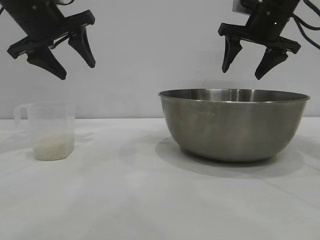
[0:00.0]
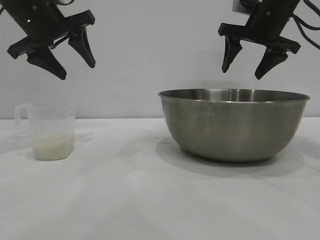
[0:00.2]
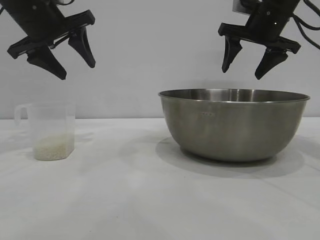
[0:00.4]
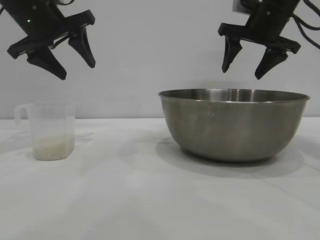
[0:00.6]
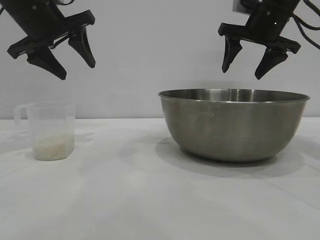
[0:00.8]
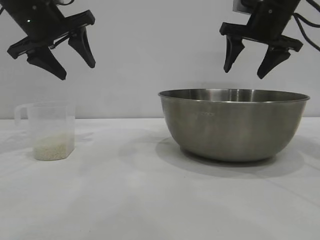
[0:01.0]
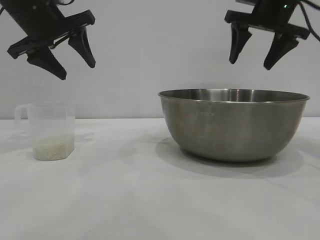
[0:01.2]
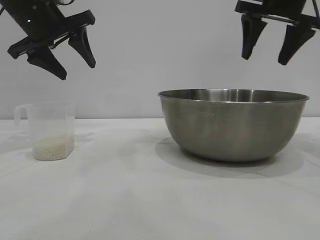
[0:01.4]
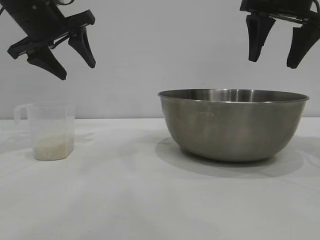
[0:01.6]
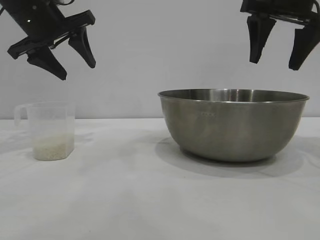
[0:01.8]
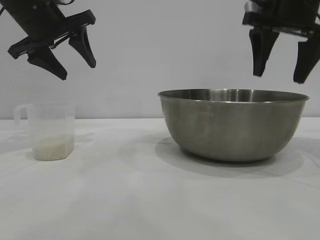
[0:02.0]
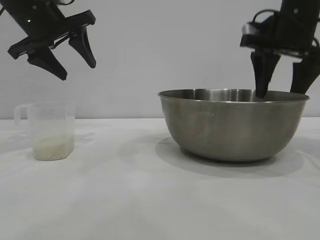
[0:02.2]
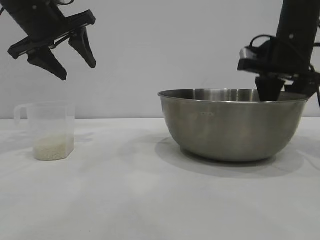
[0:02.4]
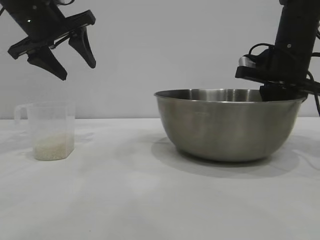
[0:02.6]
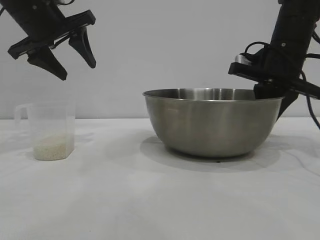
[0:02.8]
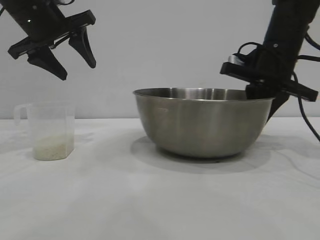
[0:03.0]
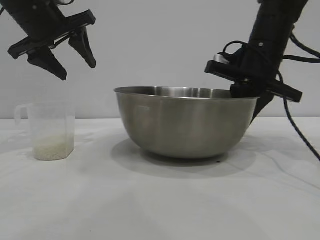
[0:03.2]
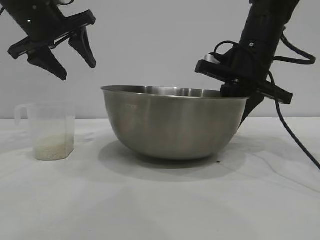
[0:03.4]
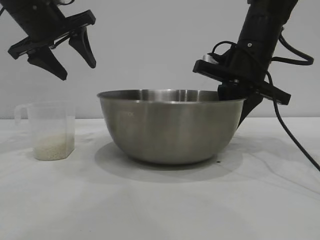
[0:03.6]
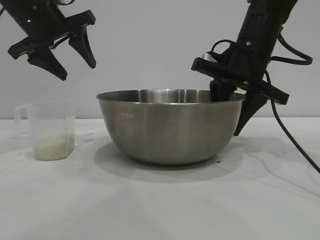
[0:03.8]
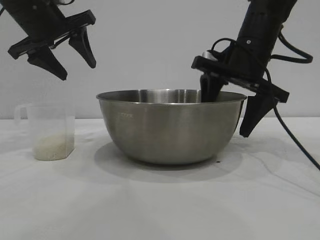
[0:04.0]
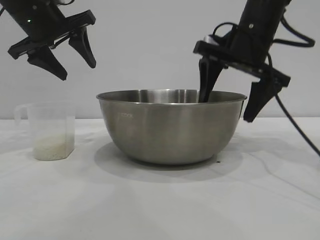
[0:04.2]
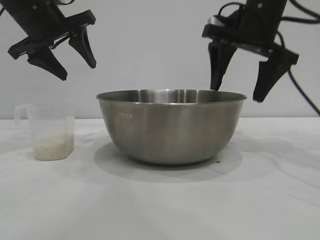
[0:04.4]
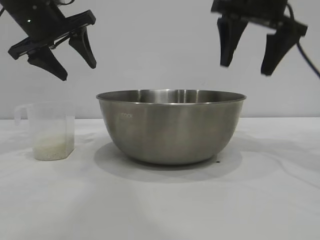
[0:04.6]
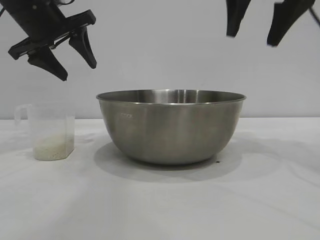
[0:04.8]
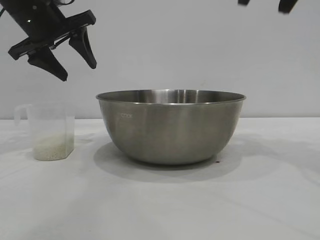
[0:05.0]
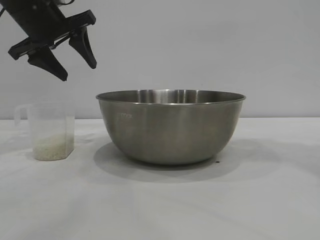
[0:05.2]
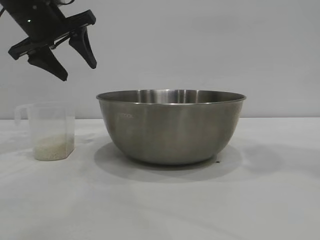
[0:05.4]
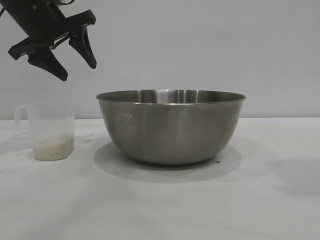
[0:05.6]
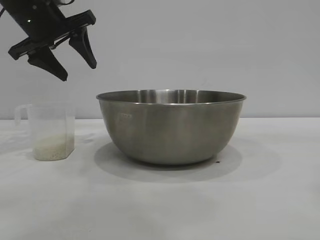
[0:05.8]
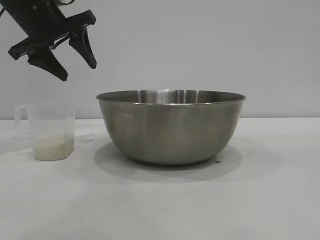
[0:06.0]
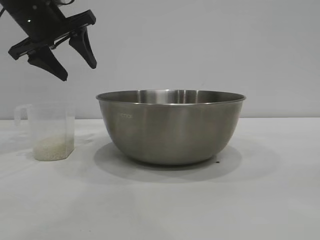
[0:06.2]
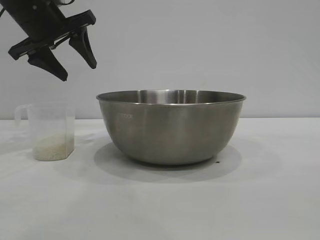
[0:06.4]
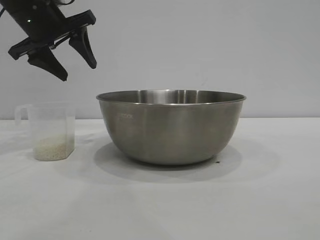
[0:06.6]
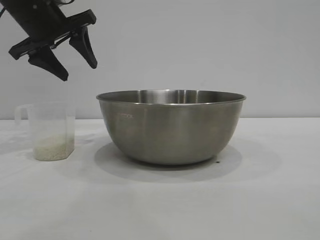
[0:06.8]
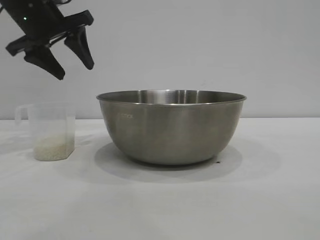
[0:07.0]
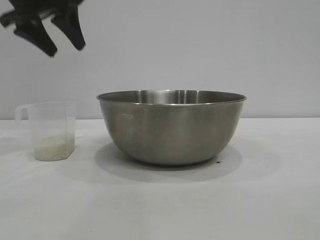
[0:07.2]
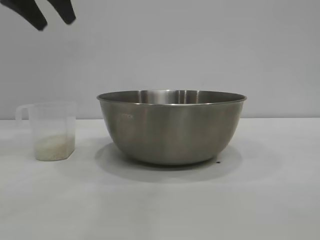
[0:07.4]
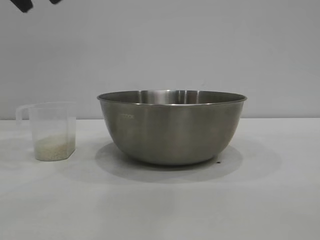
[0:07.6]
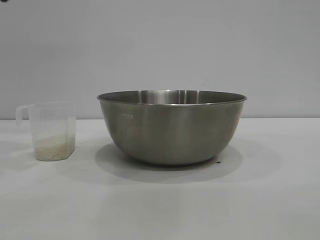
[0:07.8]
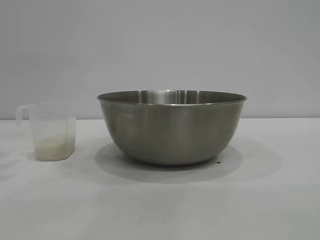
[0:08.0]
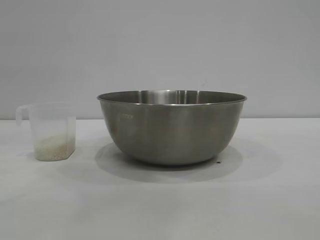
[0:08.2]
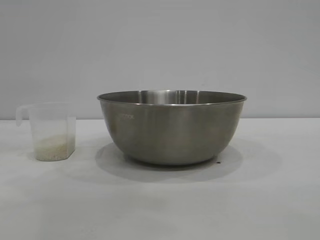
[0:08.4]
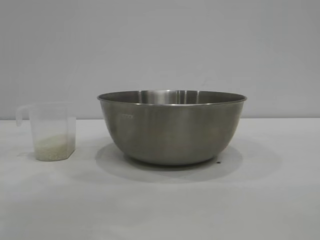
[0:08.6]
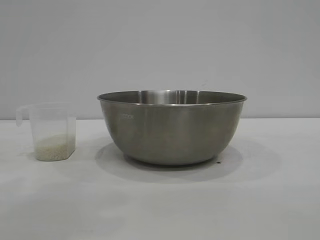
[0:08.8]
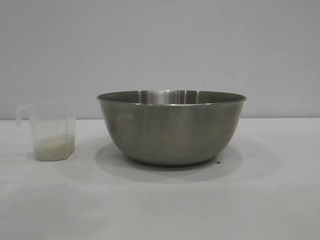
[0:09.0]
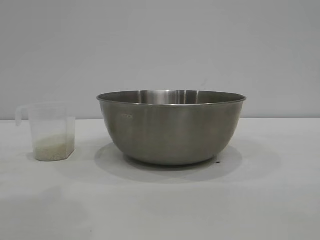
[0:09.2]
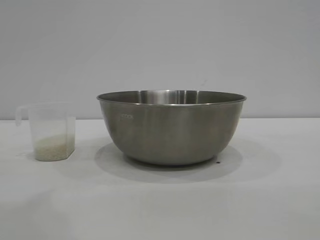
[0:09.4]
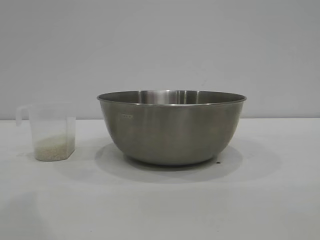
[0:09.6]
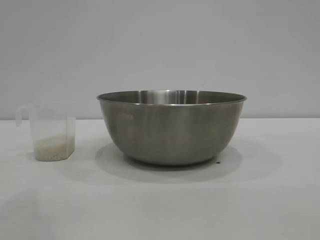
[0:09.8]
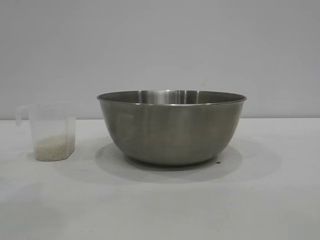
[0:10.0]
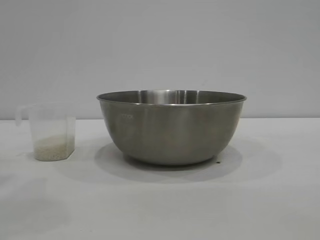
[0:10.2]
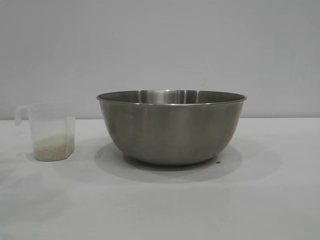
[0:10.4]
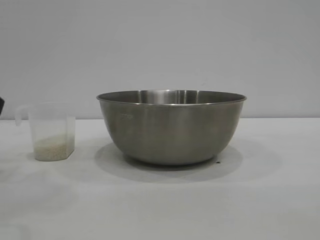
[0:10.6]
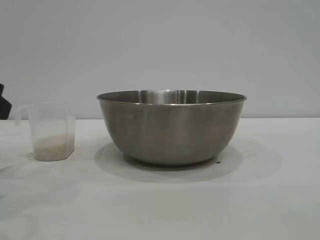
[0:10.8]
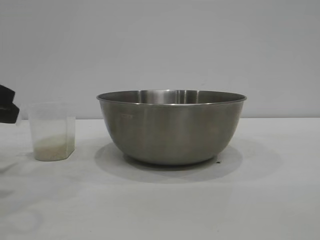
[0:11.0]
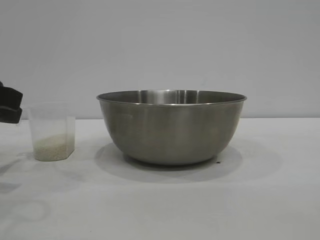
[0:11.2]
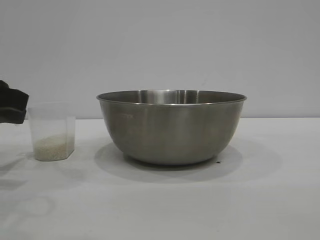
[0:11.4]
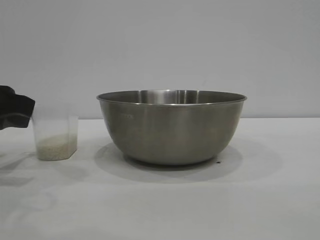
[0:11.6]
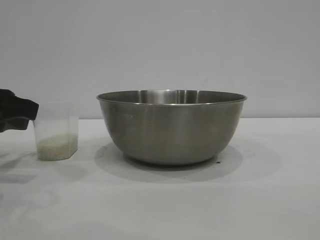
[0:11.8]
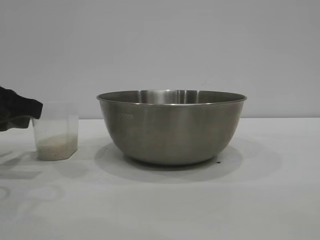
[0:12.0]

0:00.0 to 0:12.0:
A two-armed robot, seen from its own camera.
Task of the whole recording: the right gripper grasp the rice container and place it in the center of the table, the left gripper grasp the rice scoop and pour the rice into the rice container.
Step, 0:00.0 to 0:04.4: Move the bowl to the center of view with the right gripper.

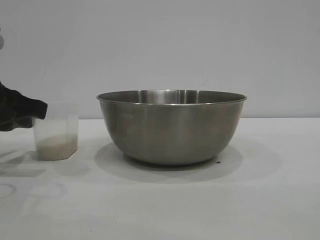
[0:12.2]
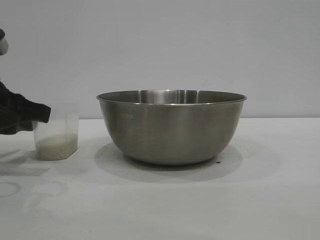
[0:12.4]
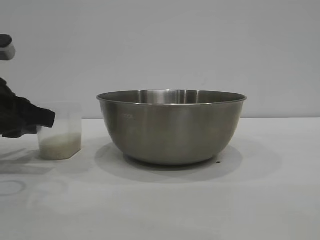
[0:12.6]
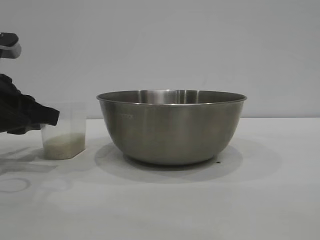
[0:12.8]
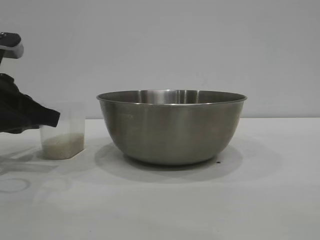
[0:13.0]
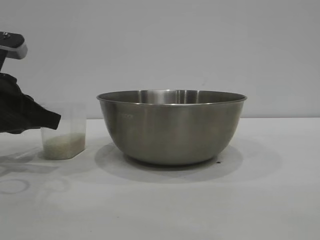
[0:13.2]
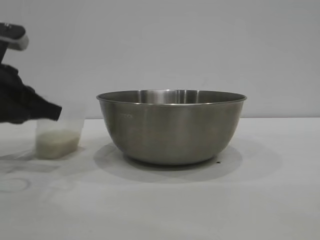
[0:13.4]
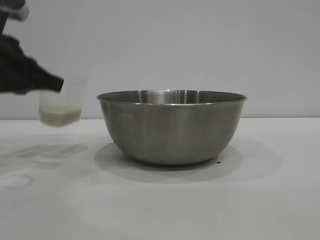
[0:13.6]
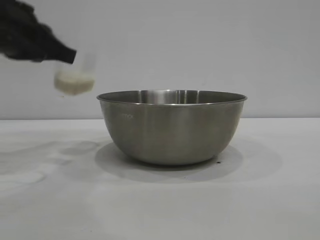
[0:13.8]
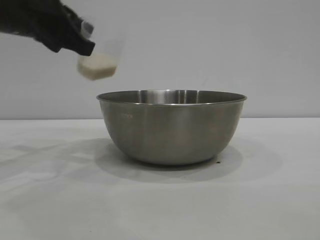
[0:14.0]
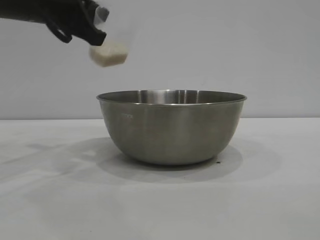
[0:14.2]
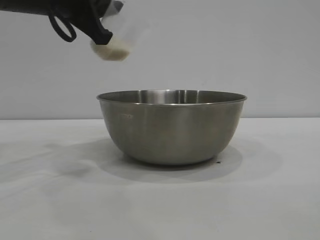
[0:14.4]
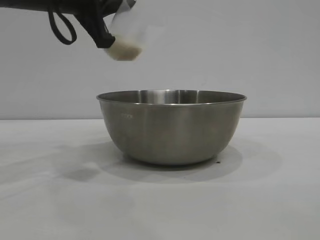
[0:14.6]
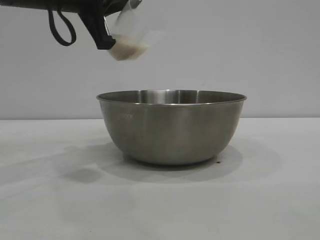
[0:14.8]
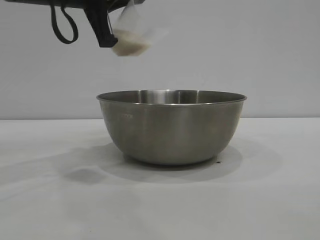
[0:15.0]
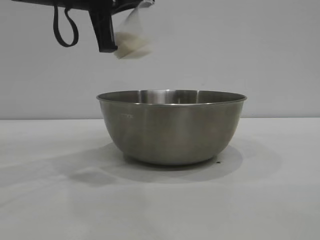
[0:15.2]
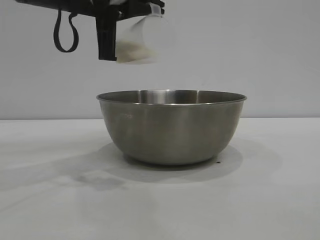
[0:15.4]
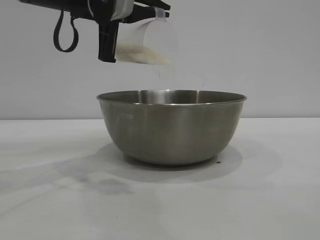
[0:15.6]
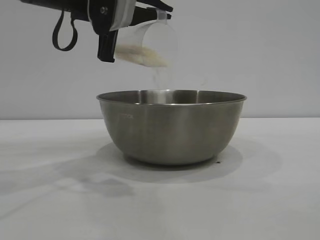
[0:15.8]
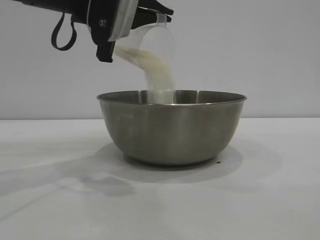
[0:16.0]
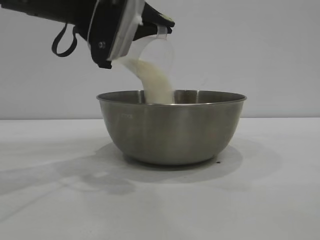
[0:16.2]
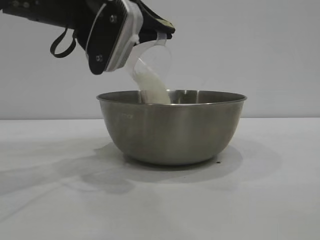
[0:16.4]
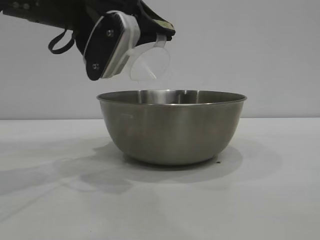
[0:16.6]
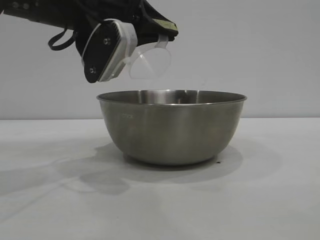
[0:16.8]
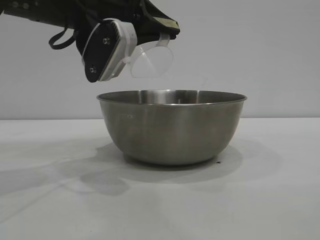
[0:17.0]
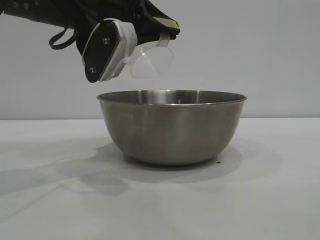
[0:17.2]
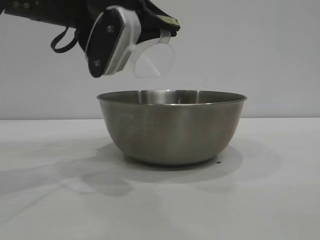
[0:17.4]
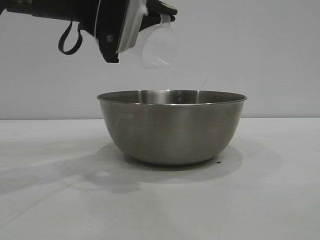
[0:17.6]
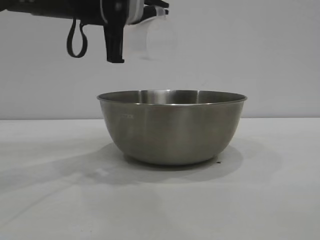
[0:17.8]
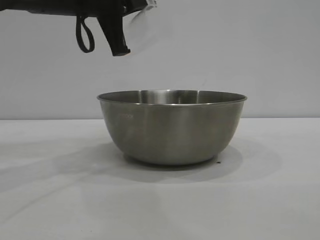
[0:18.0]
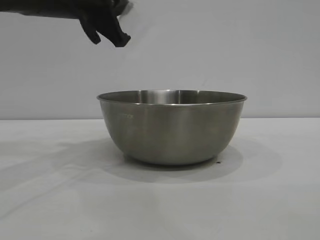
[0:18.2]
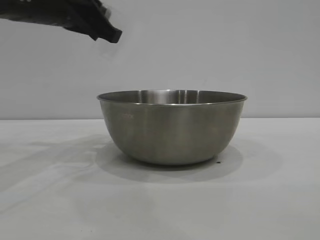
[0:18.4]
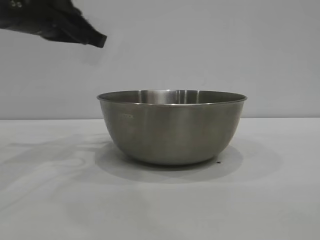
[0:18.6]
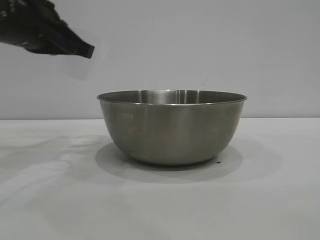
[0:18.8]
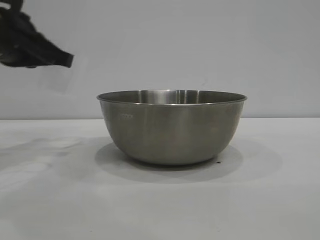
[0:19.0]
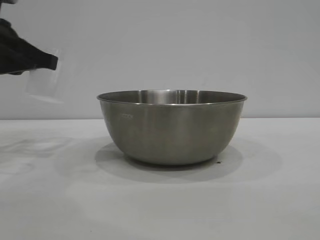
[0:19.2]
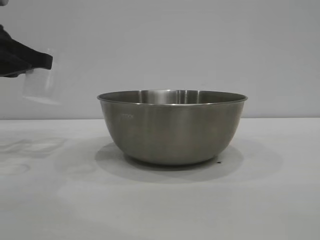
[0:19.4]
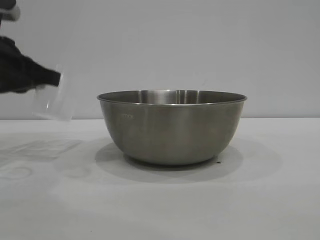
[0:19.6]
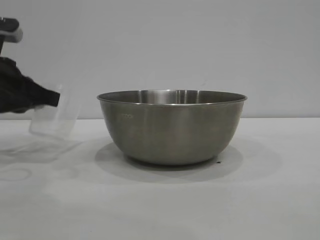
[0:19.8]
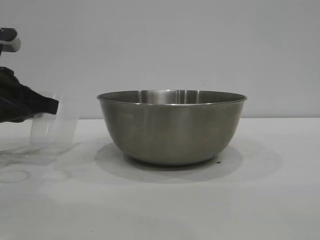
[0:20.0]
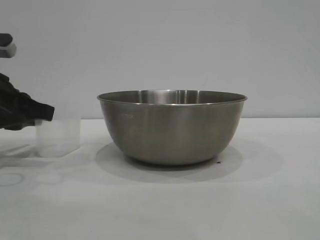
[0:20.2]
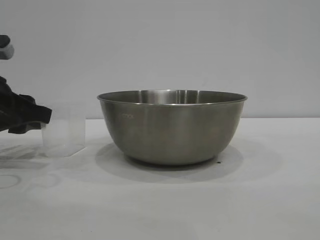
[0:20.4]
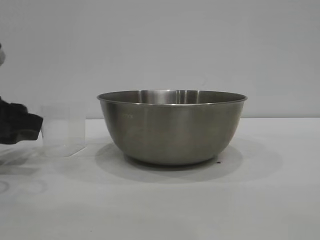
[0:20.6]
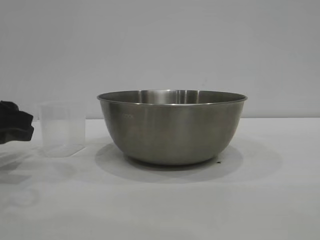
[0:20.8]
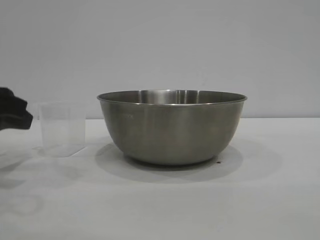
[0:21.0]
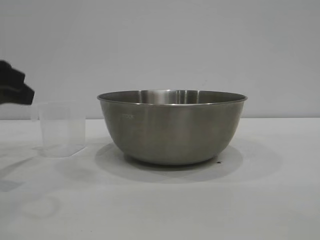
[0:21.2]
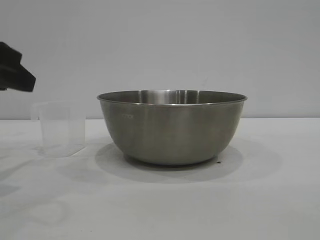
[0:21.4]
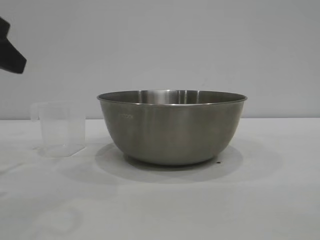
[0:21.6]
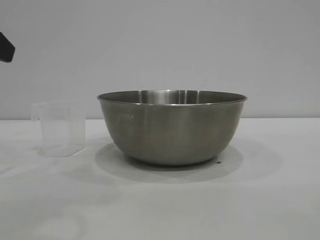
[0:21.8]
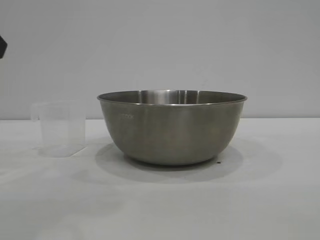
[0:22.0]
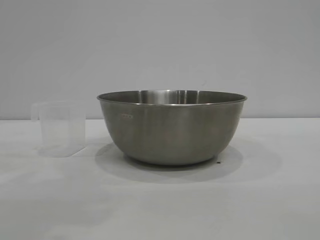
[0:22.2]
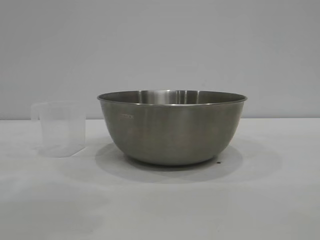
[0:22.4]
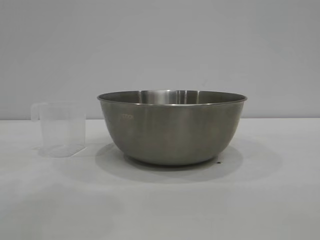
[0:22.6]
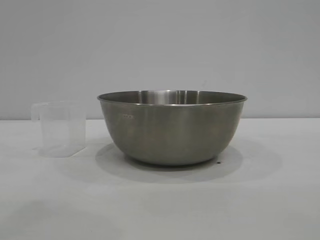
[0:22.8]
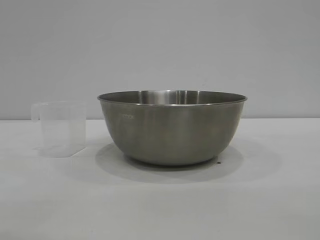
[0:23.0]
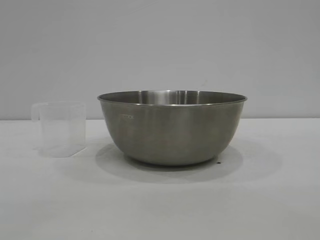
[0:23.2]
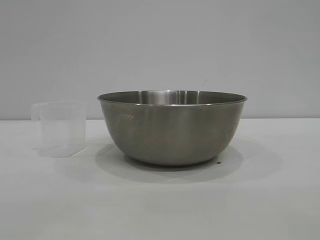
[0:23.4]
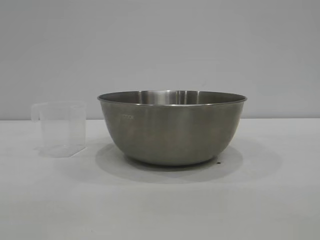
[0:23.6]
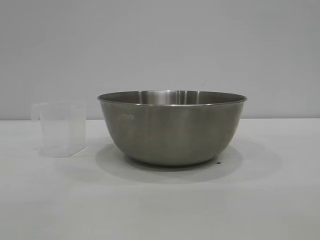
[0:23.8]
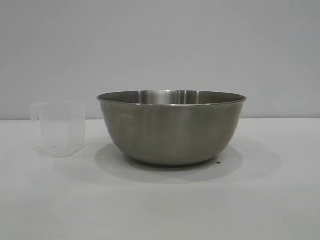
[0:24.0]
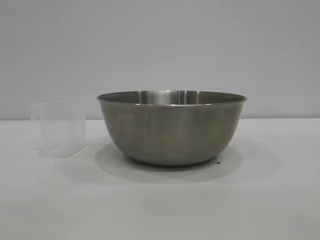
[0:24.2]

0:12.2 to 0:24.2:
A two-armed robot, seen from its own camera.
Task of the whole recording: the right gripper grasp the rice container and place it in the center of the table, the left gripper grasp the rice scoop and pour the rice into the rice container.
Step, 0:13.6 to 0:16.6: Pour the rice from the cup into the bowl with the left gripper.
Step, 0:16.8 to 0:20.6: Place the cup on the table with the left gripper.
